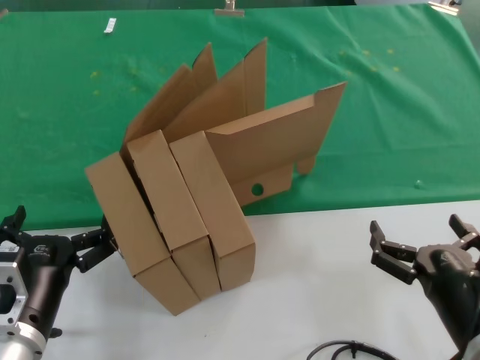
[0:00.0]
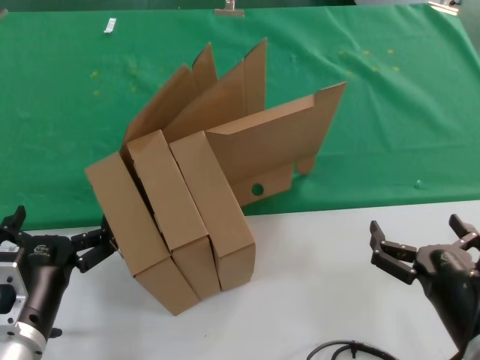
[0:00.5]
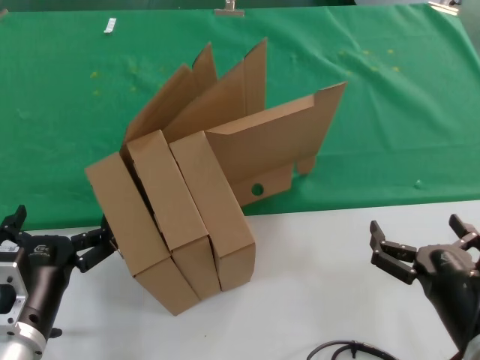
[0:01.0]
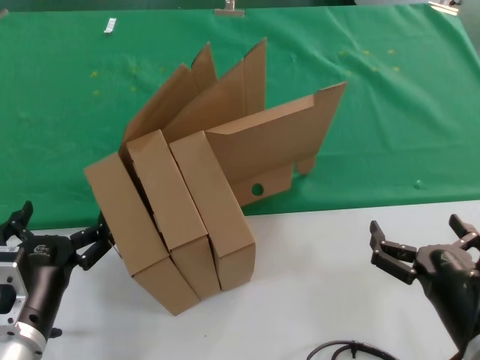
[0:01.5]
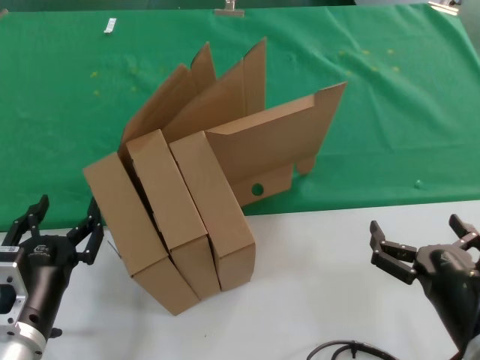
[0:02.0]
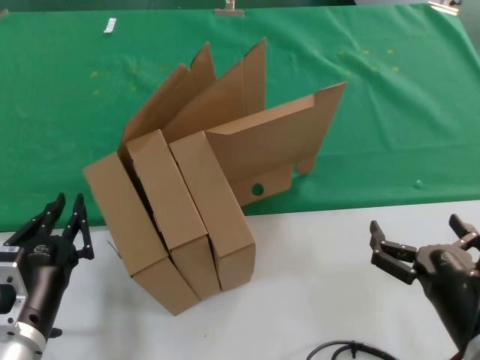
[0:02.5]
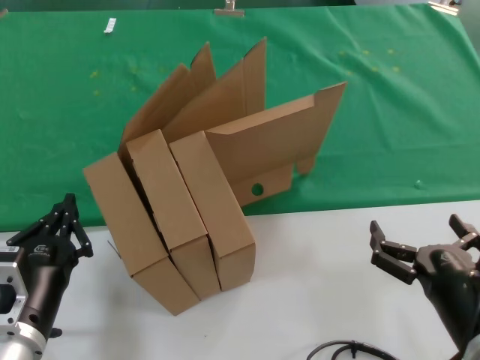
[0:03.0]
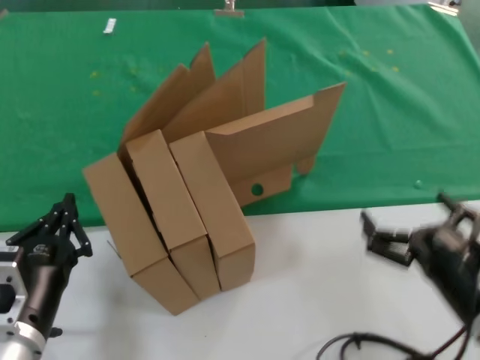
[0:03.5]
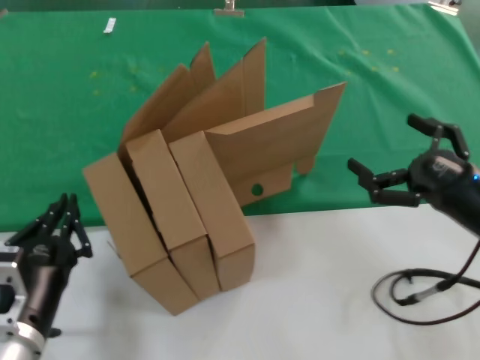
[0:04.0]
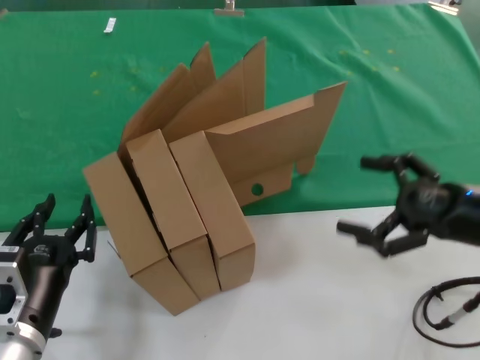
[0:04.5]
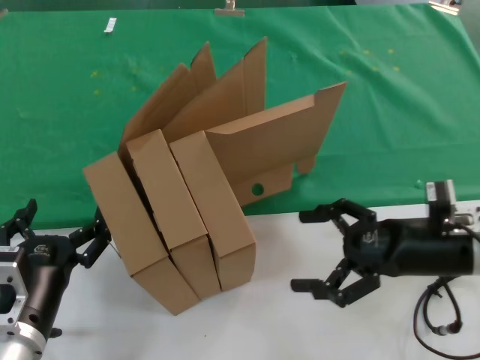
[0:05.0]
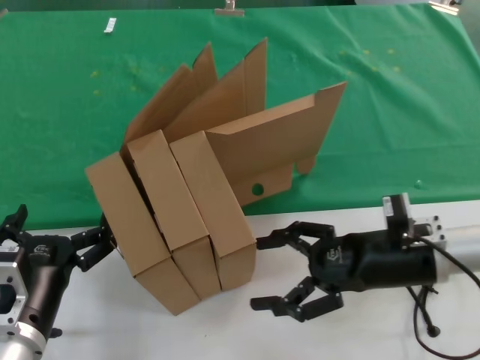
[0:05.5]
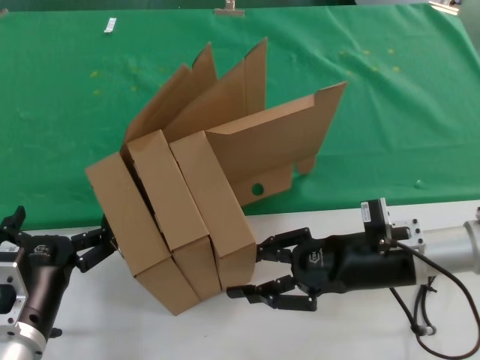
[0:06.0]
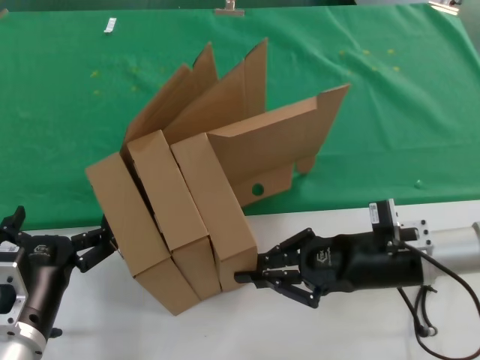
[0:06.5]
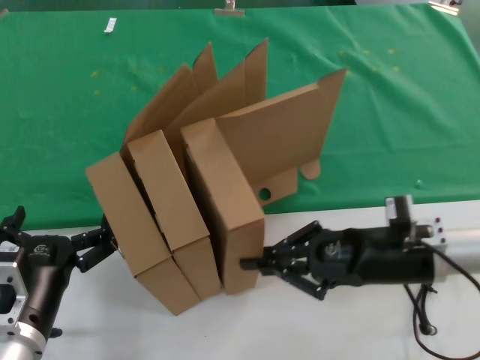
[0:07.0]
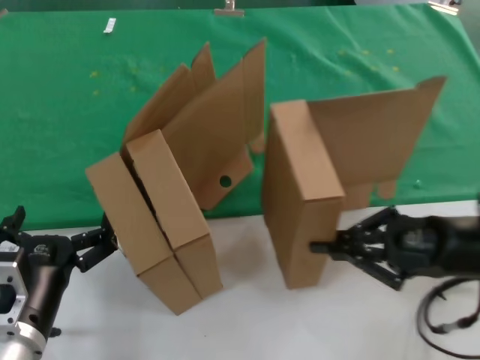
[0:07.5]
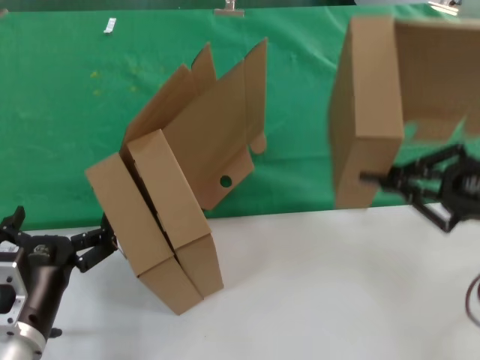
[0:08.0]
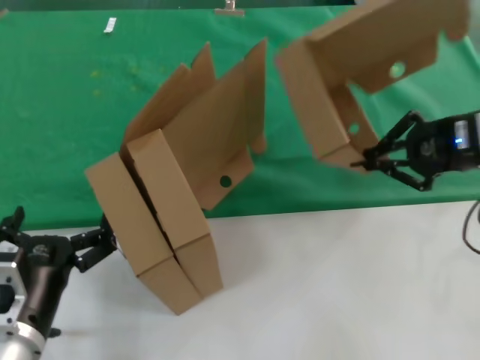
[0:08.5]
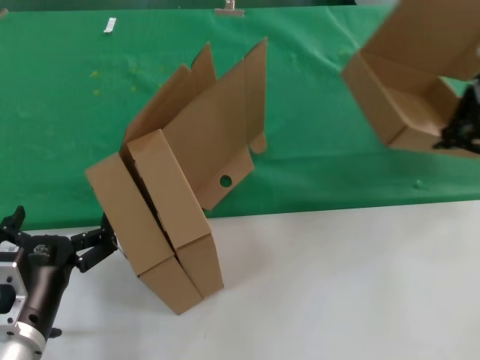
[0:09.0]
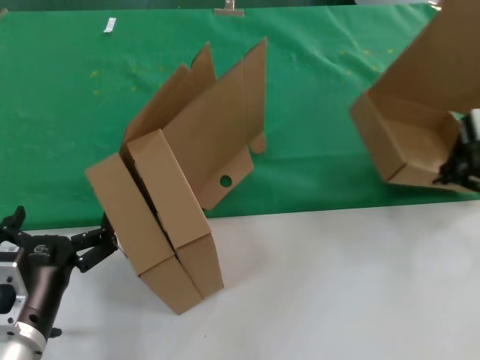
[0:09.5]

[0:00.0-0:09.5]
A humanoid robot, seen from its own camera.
Task of the whole recording: pick up the paper box and put it at the back.
Step, 0:00.0 to 0:06.5: Grasp the paper box.
0:00.0 to 0:02.0: The two hands keep their place.
0:02.0 to 0:04.0: The right hand shifts some 15 cm forward, to the right and upward.
0:04.0 to 0:05.5: The right hand travels forward and to the left by about 10 cm.
0:05.5 to 0:07.5: The right hand is displaced to the right by about 10 cm.
0:07.5 to 0:09.5: The right hand heads upward and forward, covering approximately 20 cm.

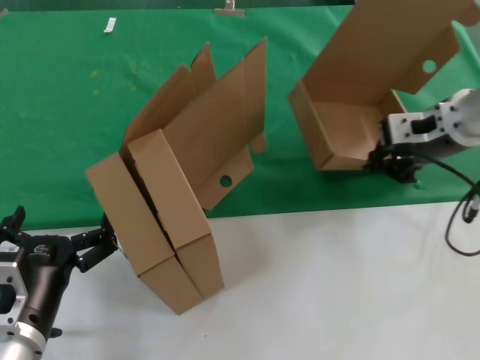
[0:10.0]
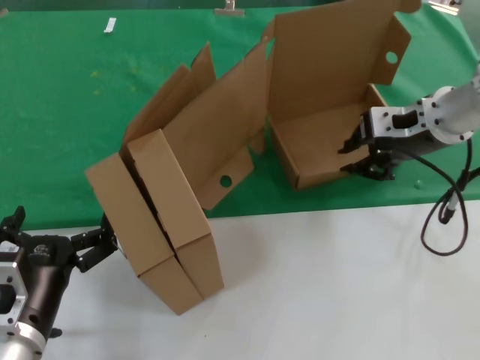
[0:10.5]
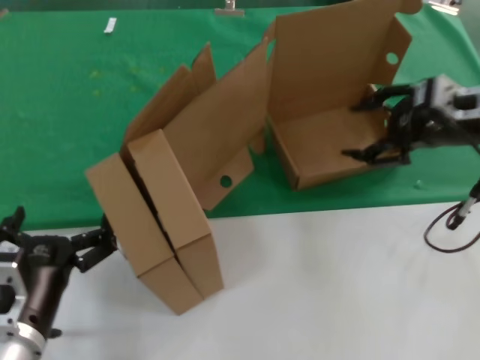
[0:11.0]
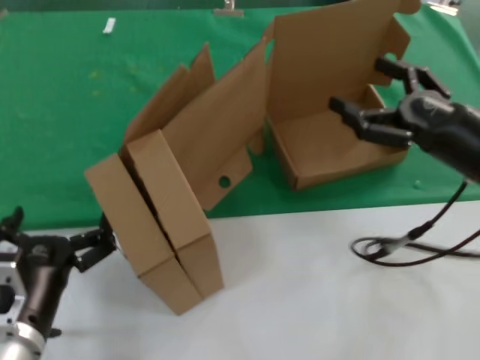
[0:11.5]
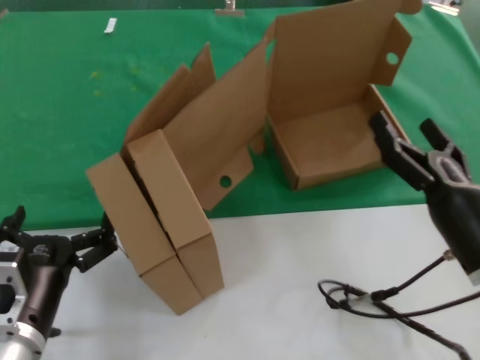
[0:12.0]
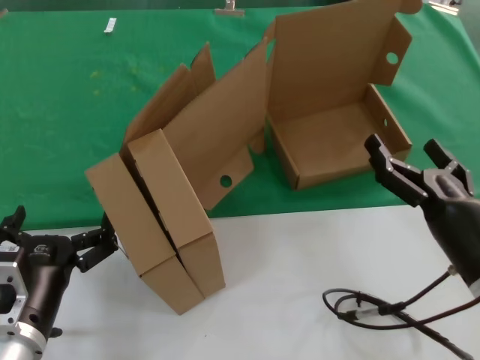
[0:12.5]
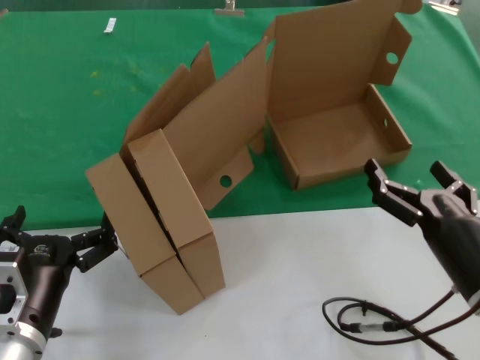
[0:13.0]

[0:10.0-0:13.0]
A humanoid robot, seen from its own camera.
Task of the whole recording: pick up the paper box and put it at the back.
0:10.0 to 0:11.5: The right hand travels downward, backward and to the right by some 15 cm.
0:11.5 to 0:13.0: The right hand travels downward, backward and to the left by roughly 20 cm.
